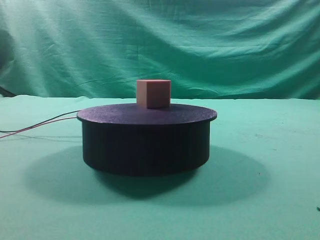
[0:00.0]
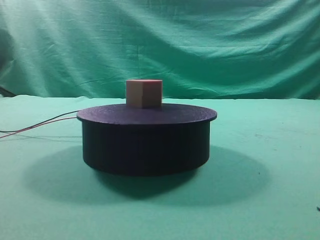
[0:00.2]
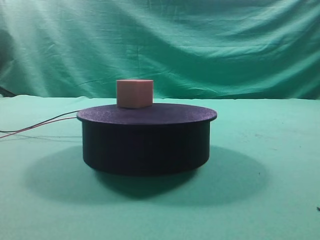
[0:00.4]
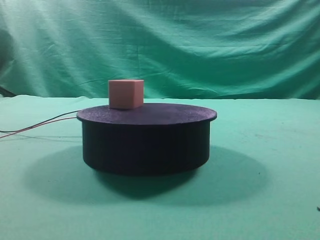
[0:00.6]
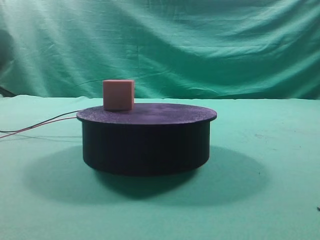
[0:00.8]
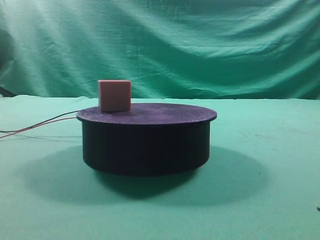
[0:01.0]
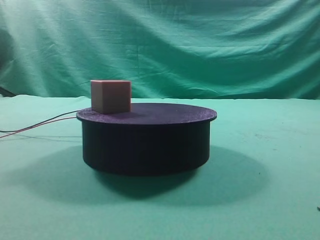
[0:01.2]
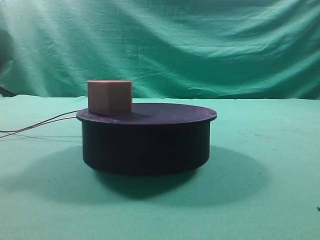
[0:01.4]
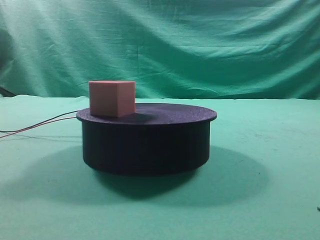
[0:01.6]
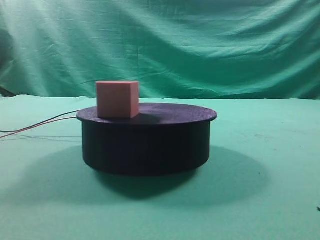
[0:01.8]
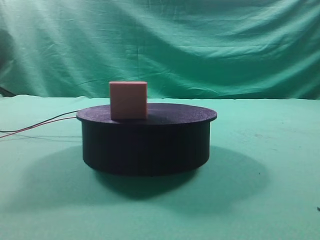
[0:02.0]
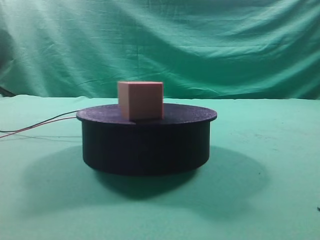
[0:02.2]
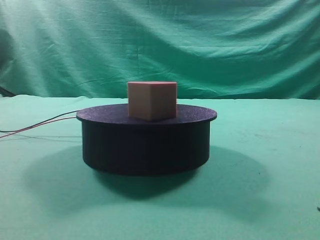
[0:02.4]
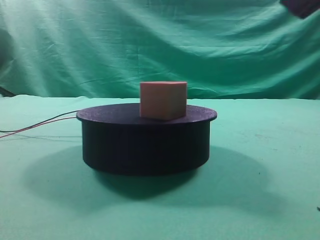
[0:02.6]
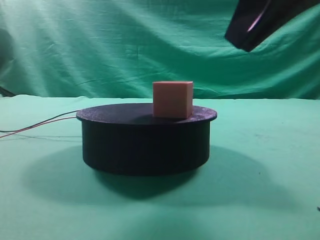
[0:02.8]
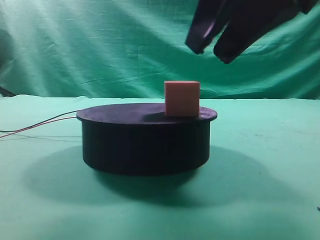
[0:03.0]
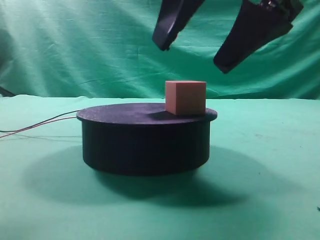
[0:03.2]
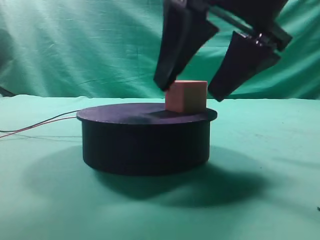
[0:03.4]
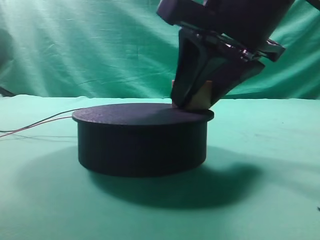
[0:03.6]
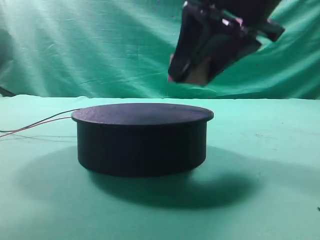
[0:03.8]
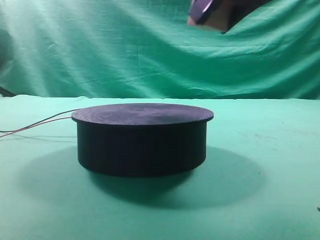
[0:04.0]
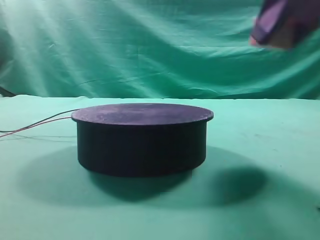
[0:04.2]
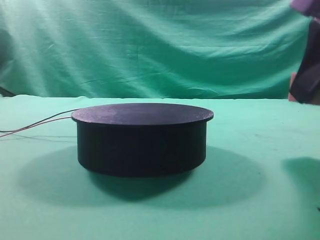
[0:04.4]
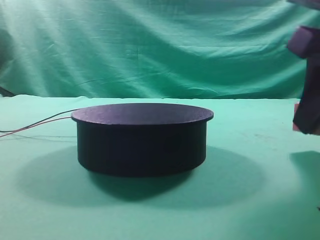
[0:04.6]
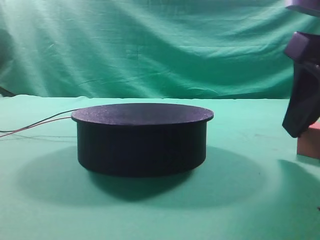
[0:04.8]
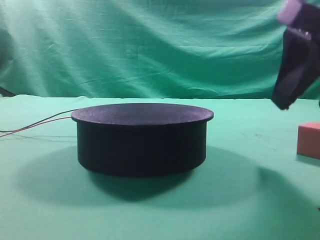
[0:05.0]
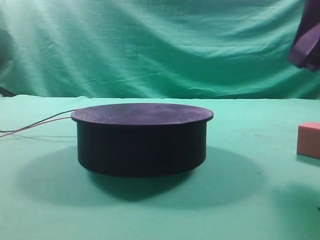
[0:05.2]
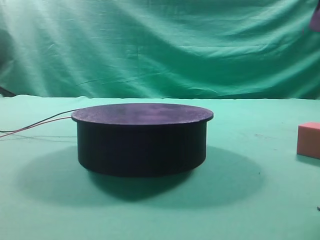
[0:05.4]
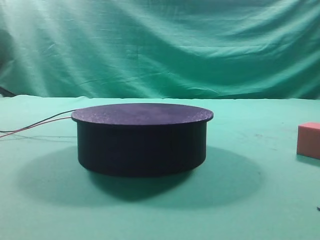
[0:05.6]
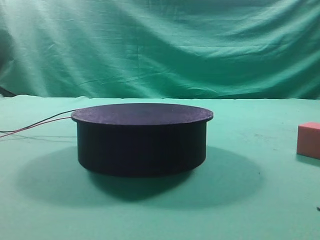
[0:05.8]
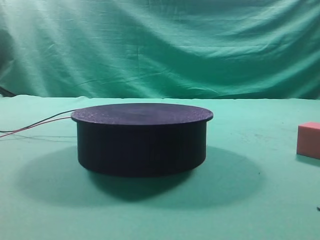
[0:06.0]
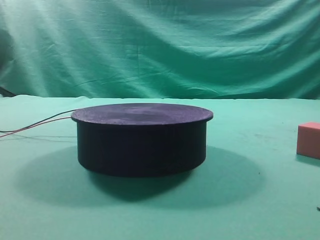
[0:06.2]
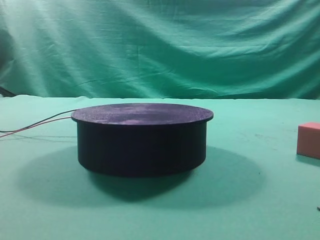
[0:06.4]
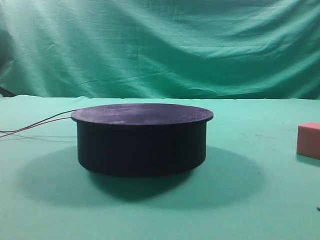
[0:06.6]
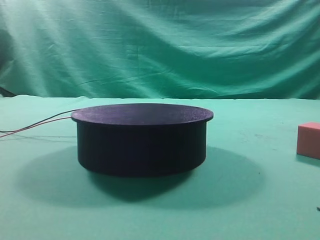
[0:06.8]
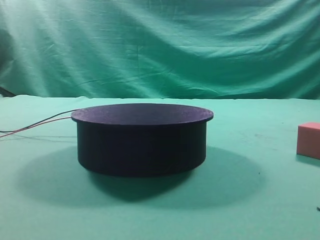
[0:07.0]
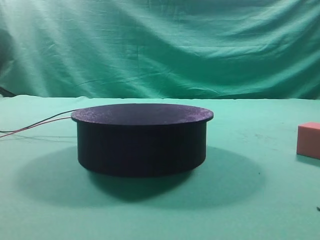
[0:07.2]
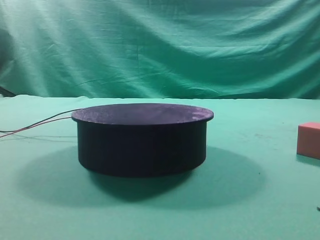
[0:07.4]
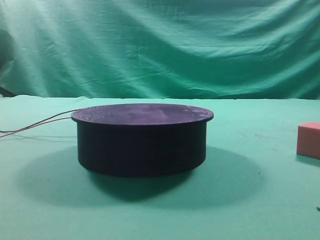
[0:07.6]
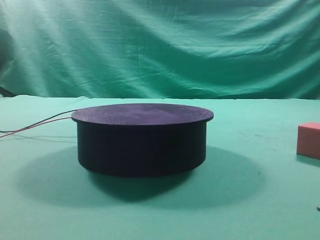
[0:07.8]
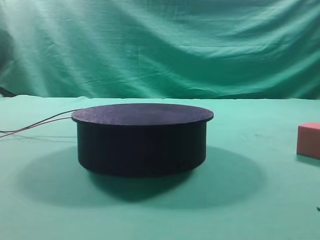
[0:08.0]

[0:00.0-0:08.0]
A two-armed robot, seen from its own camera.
Task of the whole recording: grasp the rotating cube-shaped block on the turntable and place it on the table.
Step, 0:00.0 to 0:03.8: Grasp the rotating cube-shaped block on the turntable.
Step, 0:04.0 to 0:04.8: Place the cube on the desk.
